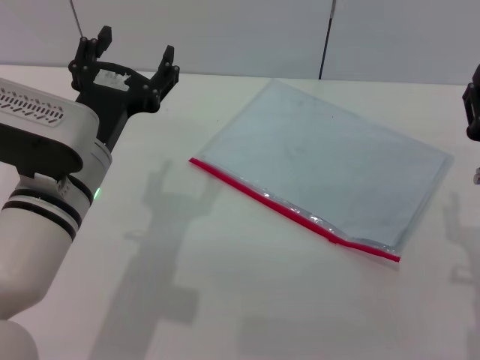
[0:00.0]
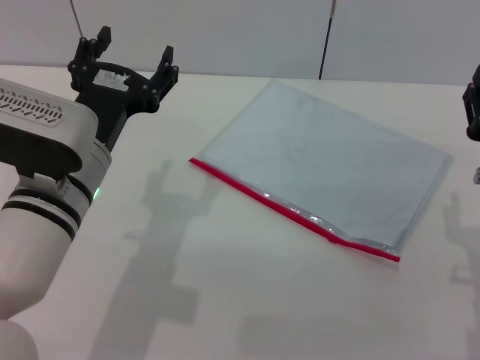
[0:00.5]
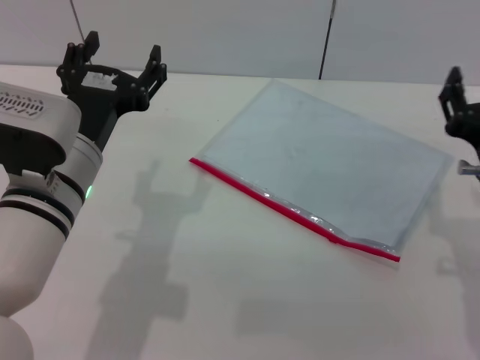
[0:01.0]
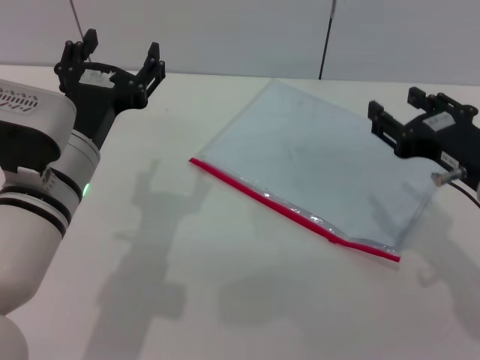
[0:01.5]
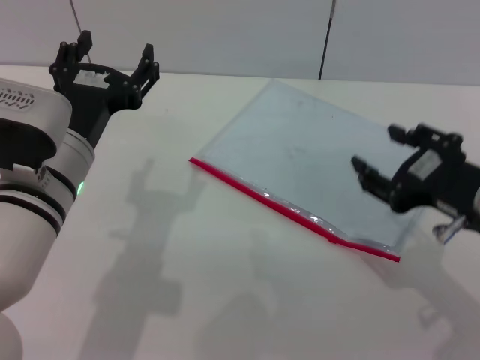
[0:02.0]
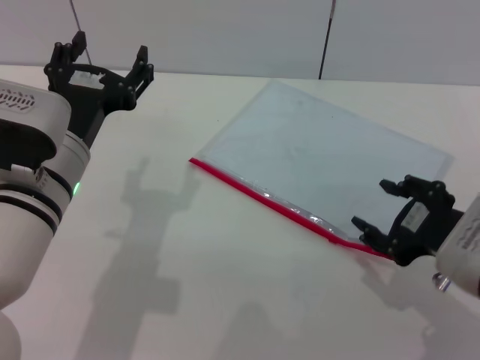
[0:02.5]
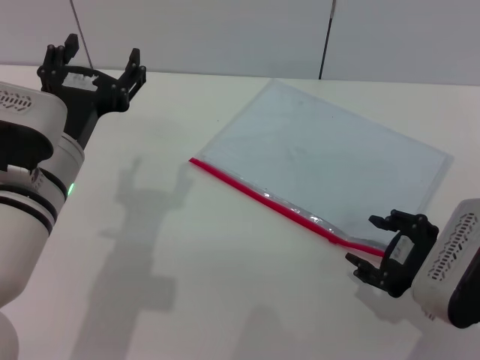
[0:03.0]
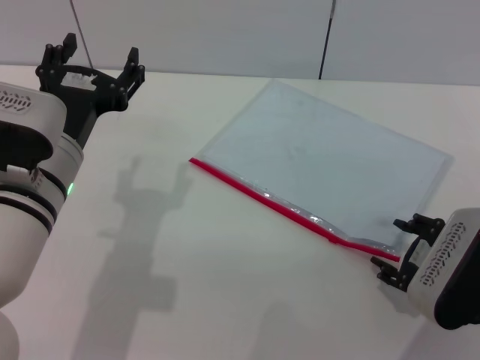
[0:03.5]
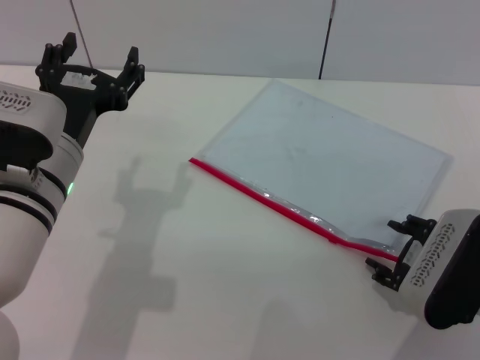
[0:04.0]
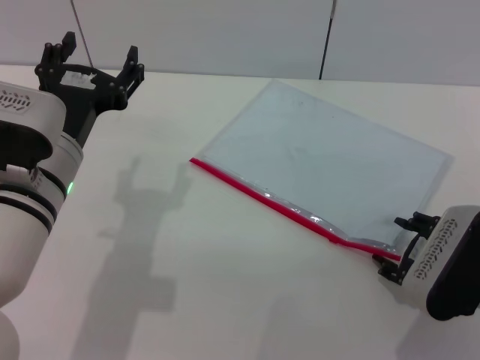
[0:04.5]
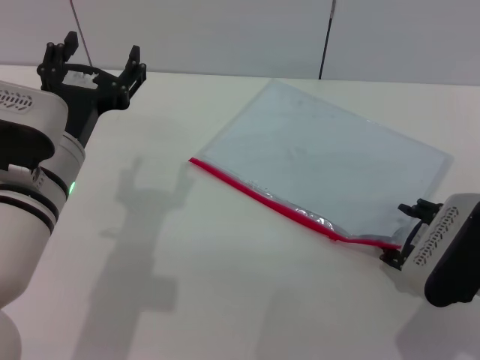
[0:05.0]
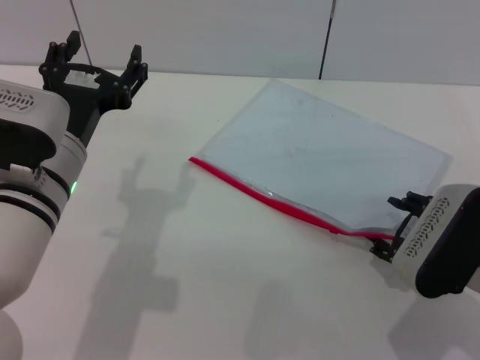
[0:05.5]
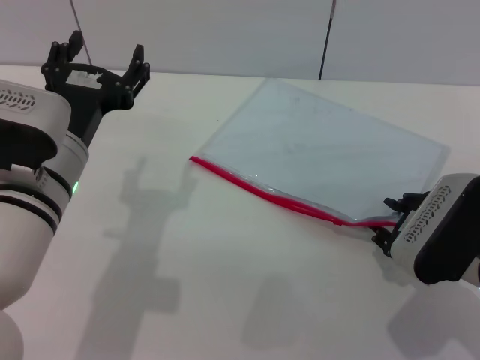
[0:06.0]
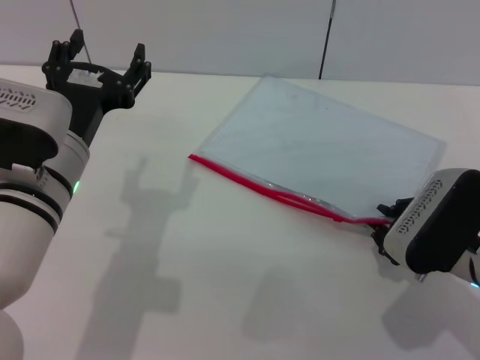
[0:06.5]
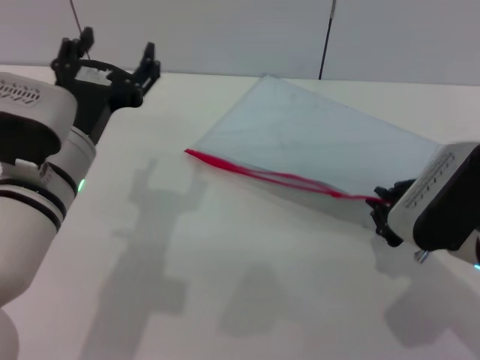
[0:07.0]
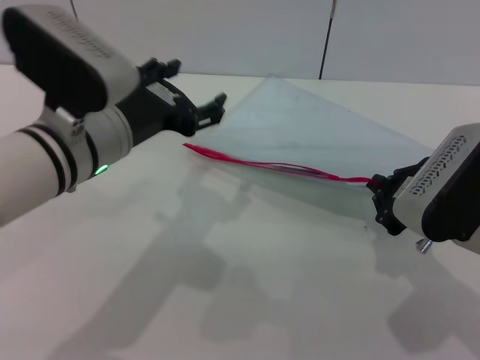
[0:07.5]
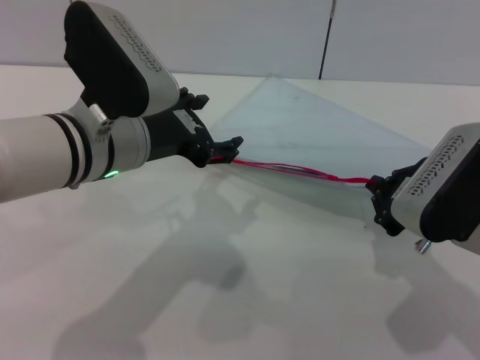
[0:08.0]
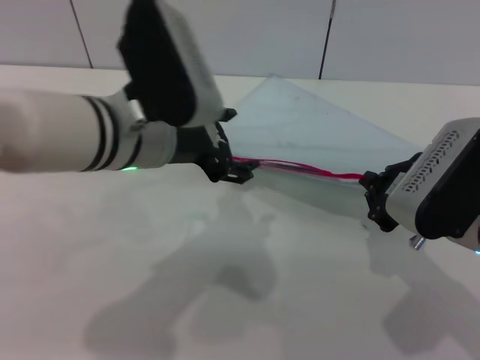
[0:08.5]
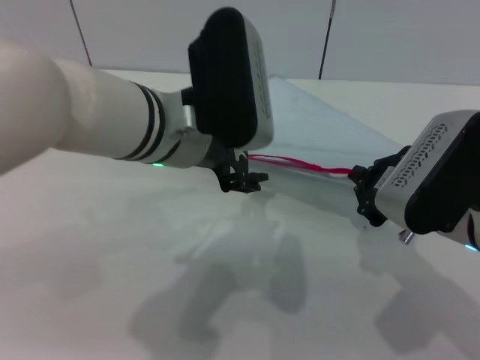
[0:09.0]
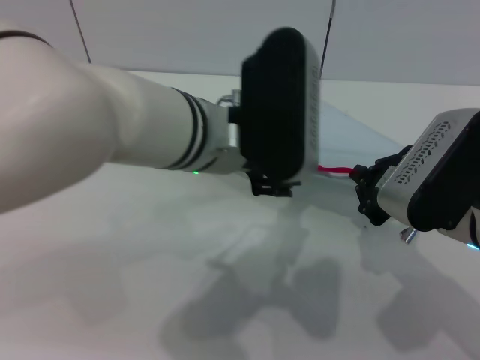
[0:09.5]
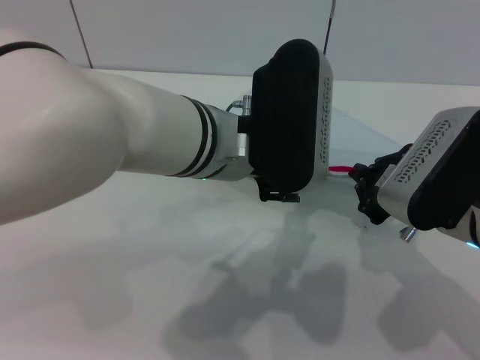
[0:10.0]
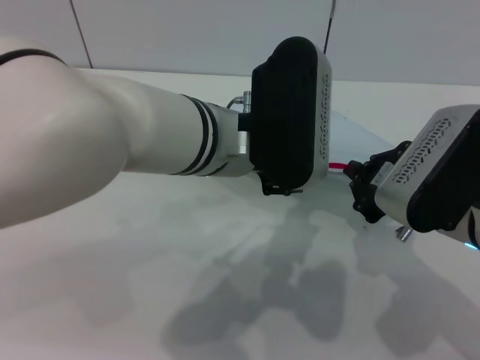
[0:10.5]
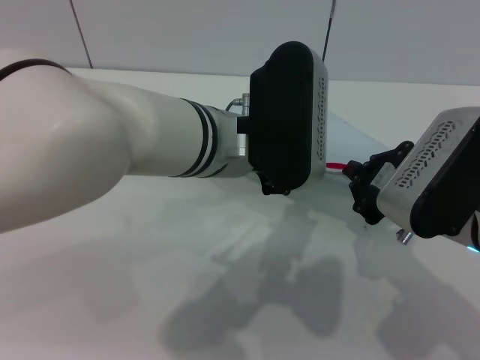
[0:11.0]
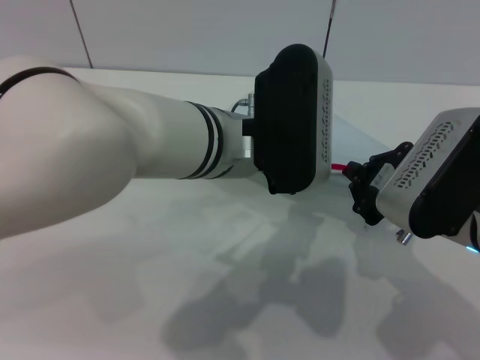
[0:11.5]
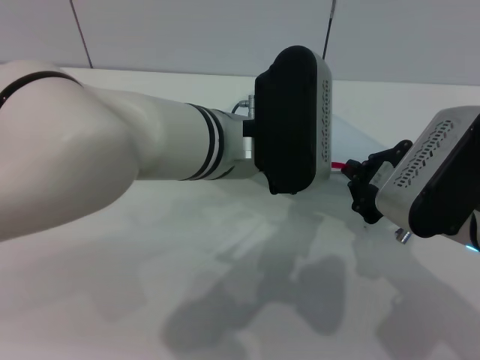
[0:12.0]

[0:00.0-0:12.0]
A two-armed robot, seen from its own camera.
Step, 0:00.0 to 0:07.0: Pick up the transparent plastic bag with the right gripper.
0:02.0 to 0:04.0: The right gripper travels downward by roughly 5 cm.
0:04.0 to 0:06.0: The grippers stay close to where they were, moving slightly.
0:06.0 to 0:08.0: The right gripper closes up. The left gripper changes place by about 5 cm.
0:08.0 to 0:10.0: The left gripper is displaced to the right by roughly 10 cm.
0:10.0 to 0:12.0: The left gripper closes its fingers.

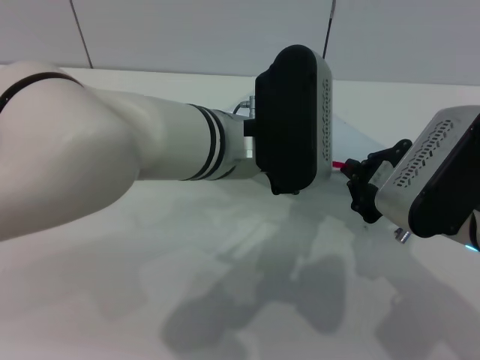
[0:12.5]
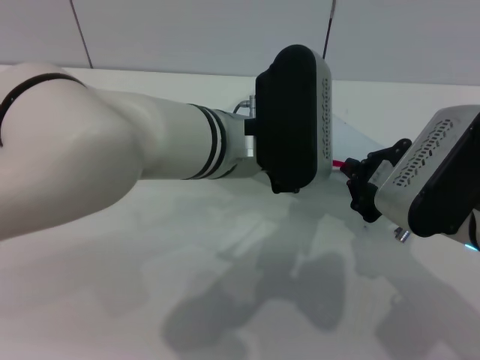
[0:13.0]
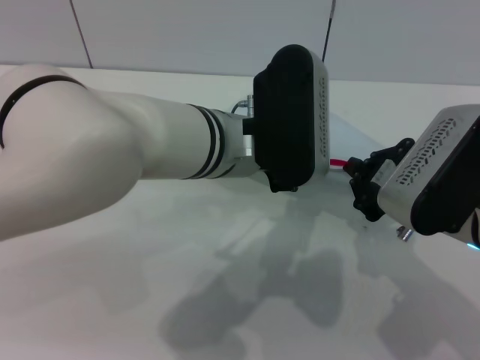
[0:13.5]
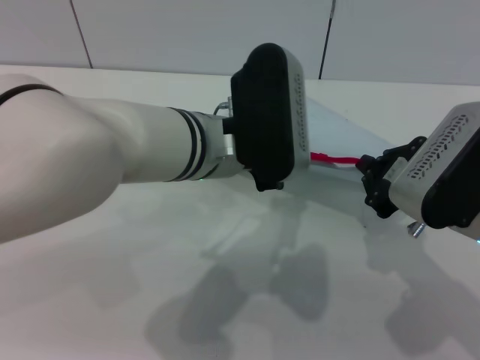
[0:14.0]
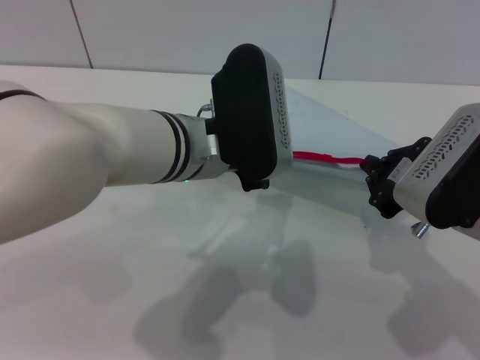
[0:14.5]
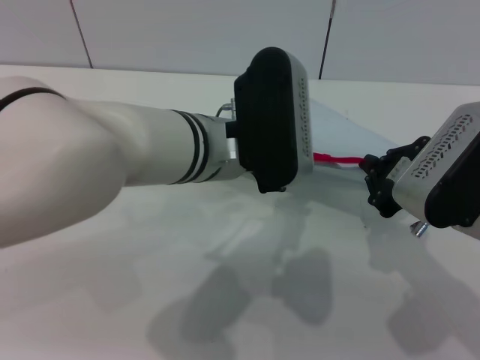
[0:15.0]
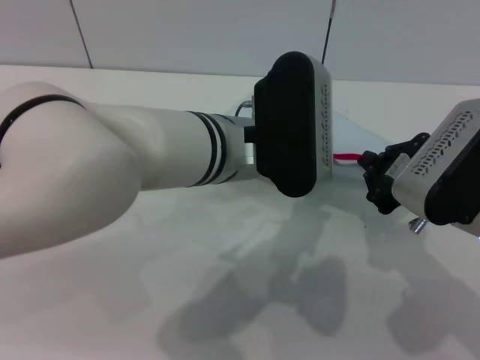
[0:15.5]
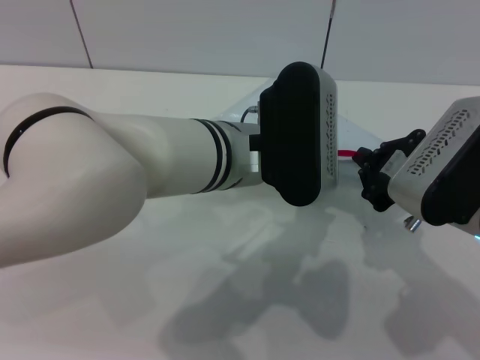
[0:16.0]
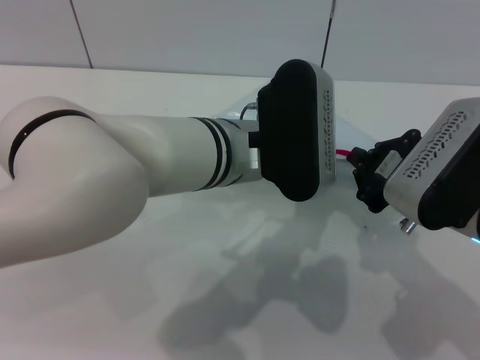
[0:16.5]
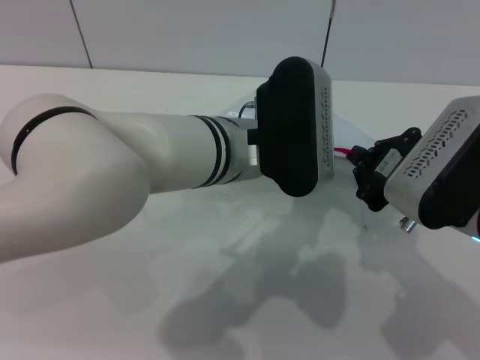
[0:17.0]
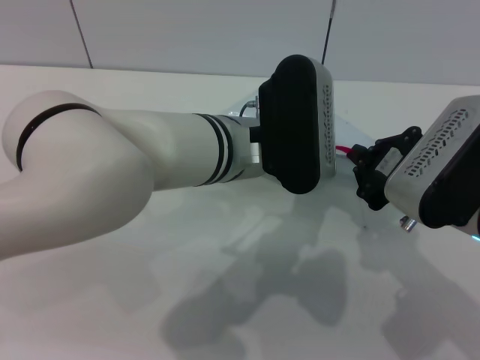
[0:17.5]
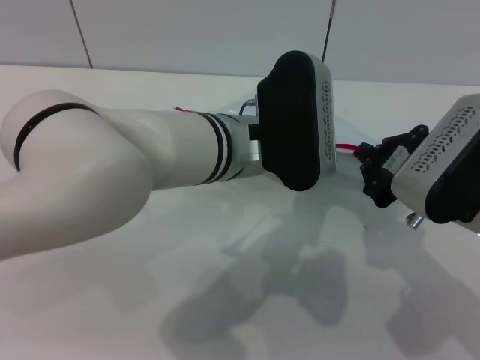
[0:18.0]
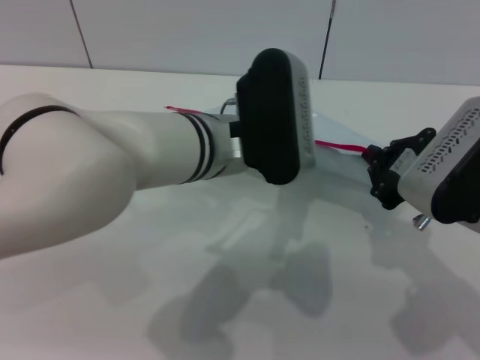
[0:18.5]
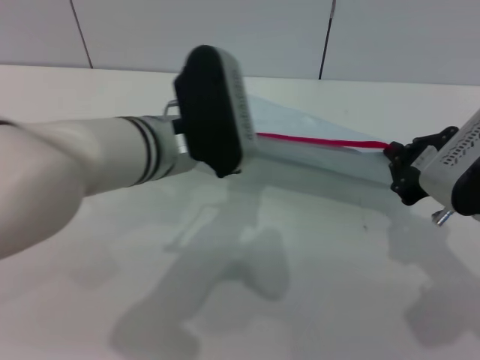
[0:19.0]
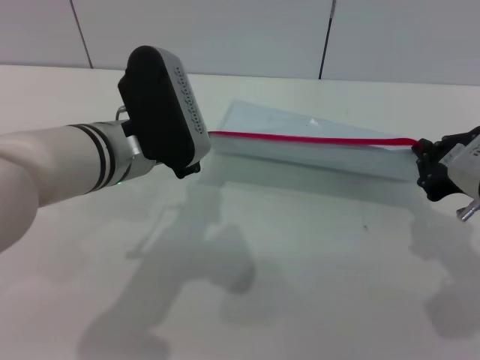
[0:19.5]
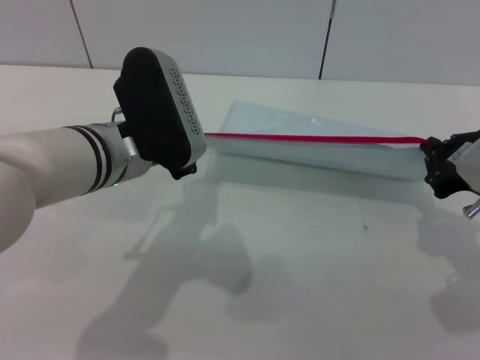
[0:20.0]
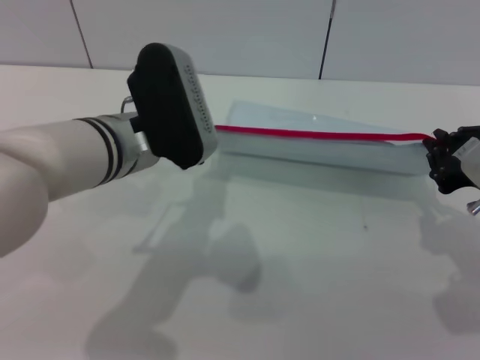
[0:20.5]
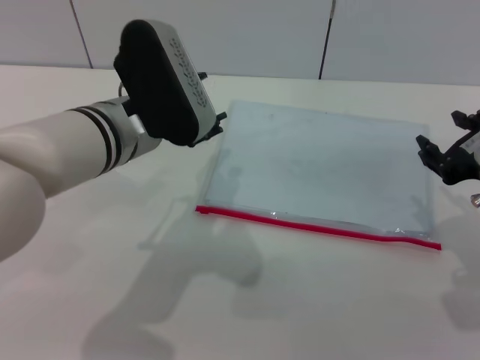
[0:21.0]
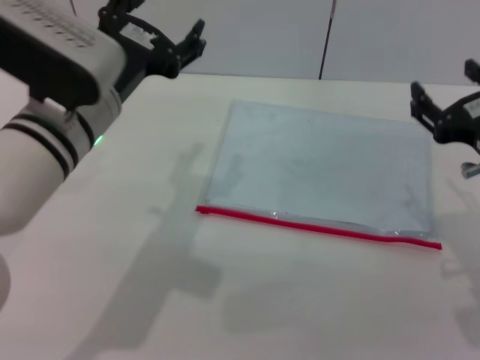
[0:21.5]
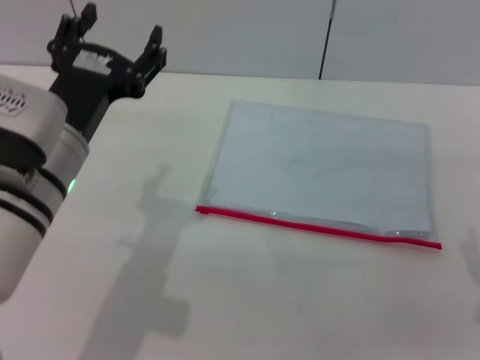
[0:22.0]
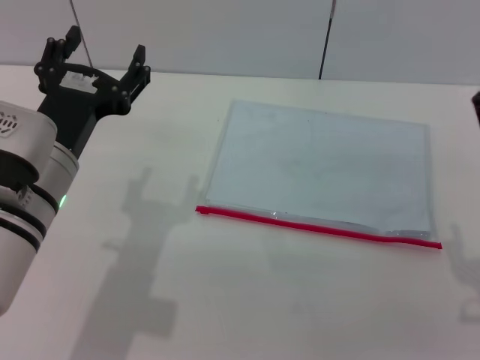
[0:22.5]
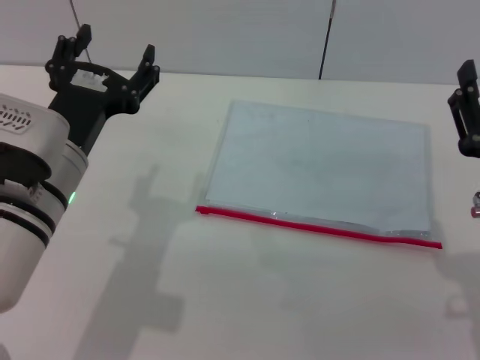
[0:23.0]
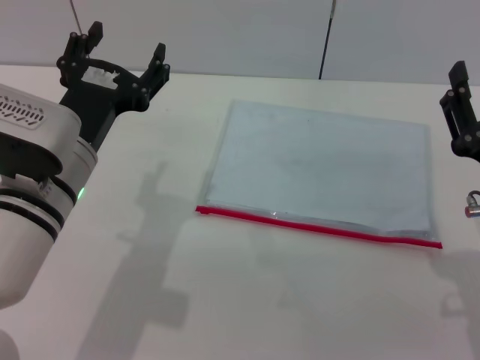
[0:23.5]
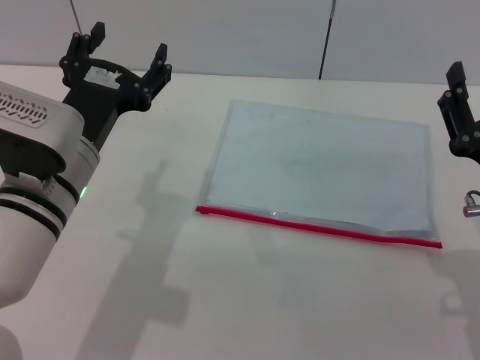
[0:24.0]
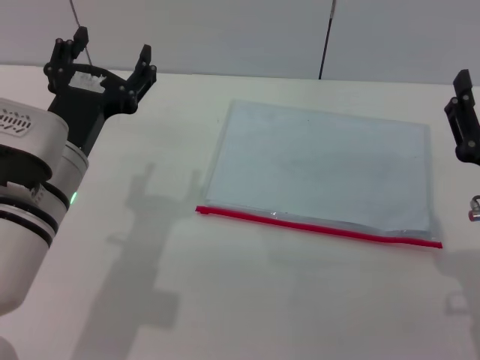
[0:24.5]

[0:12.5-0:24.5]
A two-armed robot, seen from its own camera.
Step, 0:12.5 to 0:20.5: Pulling up the zipper on the transparent plastic bag with the left gripper to close it.
Step, 0:21.5 to 0:23.5: Place the transparent plastic bag.
0:12.5 to 0:14.5: There are only small adjustments of the grippers.
0:16.5 to 0:18.5: There are only small adjustments of the grippers.
0:18.5 to 0:20.5: The left gripper shifts about 10 cm to the left.
0:20.5 to 0:22.5: Both grippers move backward, approximately 5 cm. The right gripper opens its fingers. The left gripper opens up.
0:22.5 to 0:24.5: The grippers move only a little.

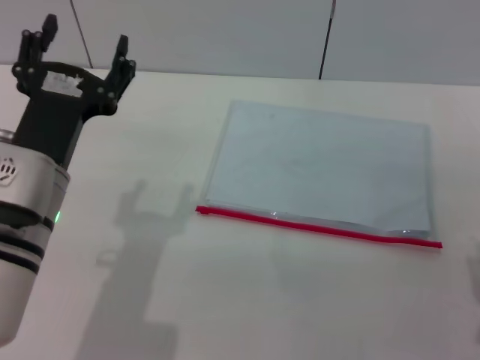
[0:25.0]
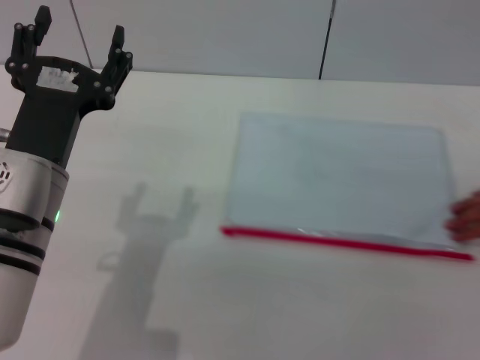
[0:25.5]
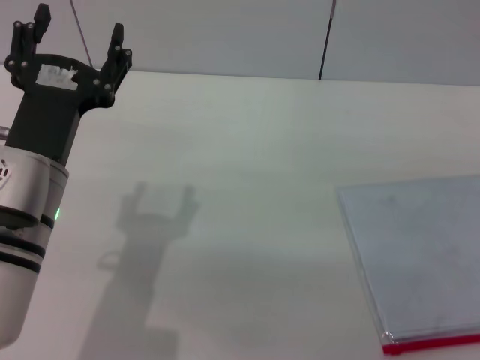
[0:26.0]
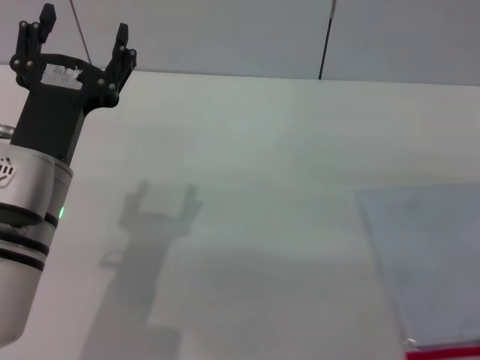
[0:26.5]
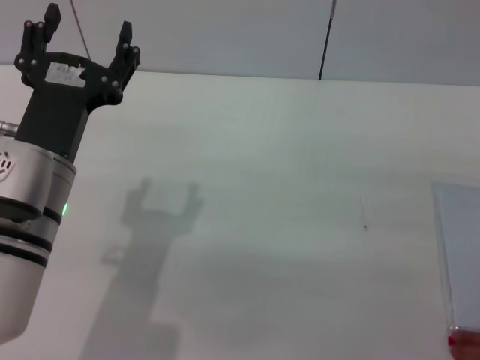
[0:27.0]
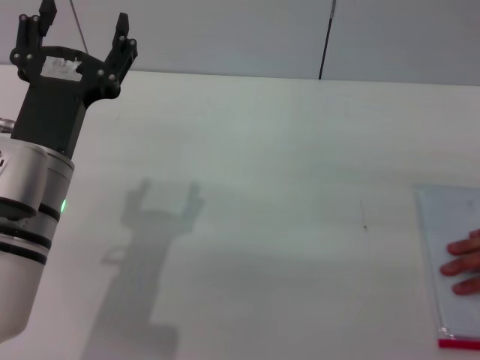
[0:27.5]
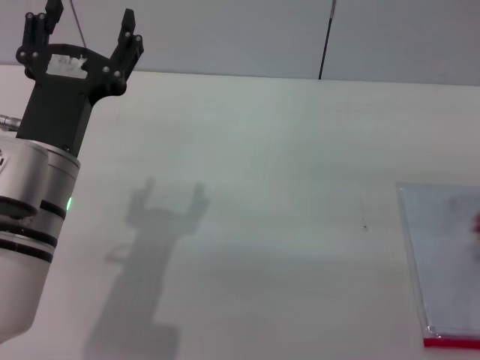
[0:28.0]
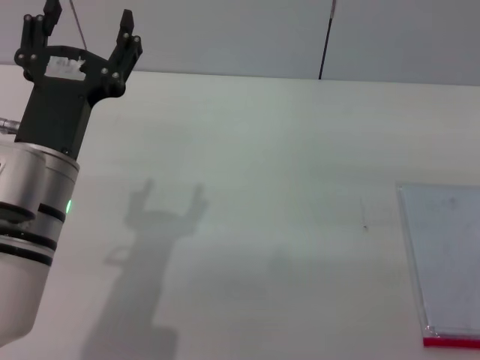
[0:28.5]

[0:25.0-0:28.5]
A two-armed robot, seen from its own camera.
0:25.0 to 0:27.0: The grippers move only a little.
0:27.0 to 0:28.5: The two grippers keep their place.
